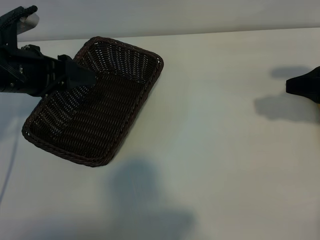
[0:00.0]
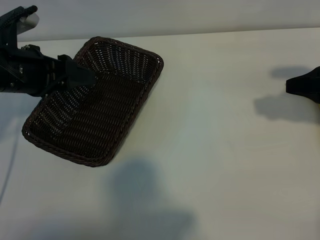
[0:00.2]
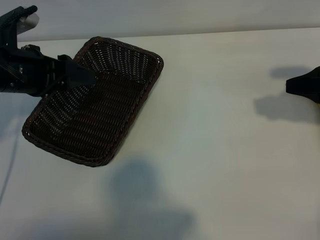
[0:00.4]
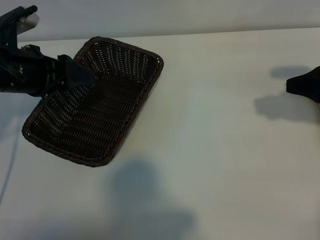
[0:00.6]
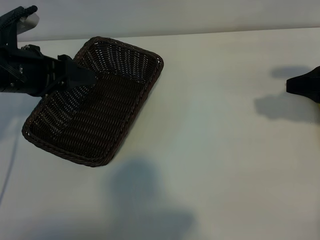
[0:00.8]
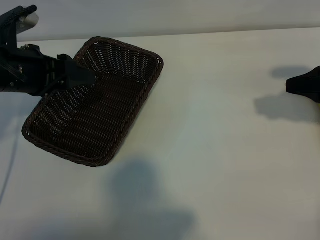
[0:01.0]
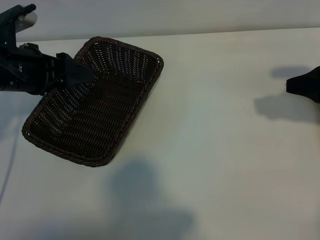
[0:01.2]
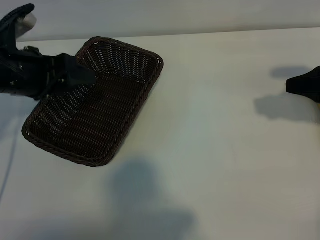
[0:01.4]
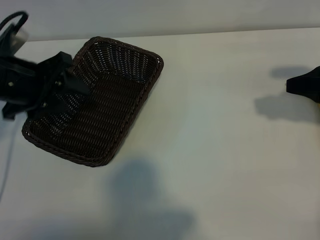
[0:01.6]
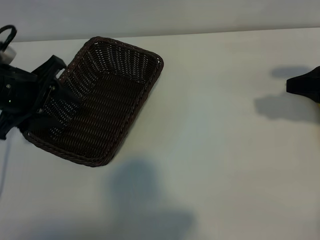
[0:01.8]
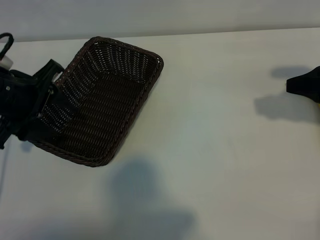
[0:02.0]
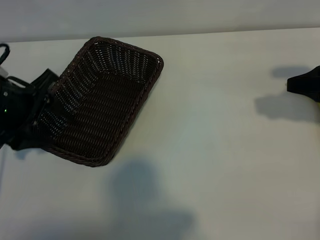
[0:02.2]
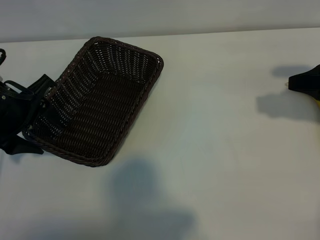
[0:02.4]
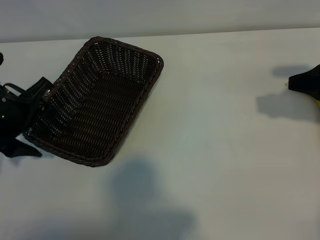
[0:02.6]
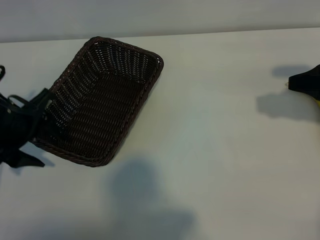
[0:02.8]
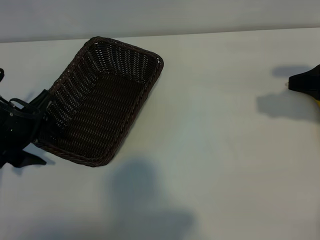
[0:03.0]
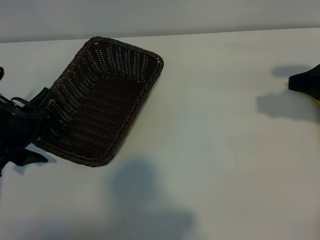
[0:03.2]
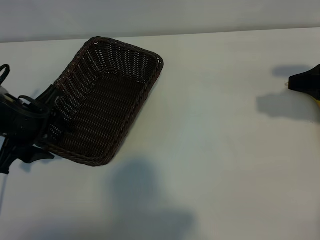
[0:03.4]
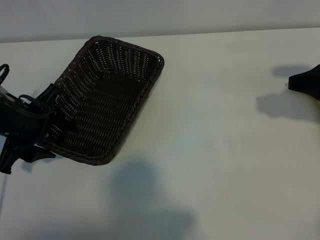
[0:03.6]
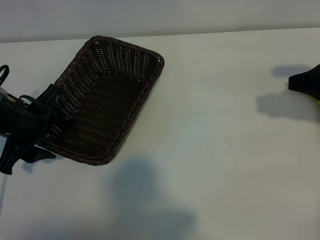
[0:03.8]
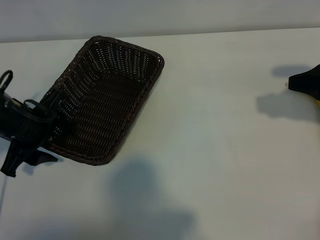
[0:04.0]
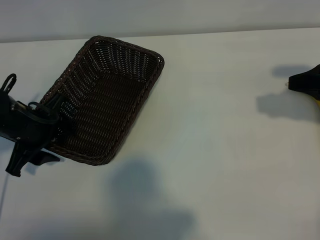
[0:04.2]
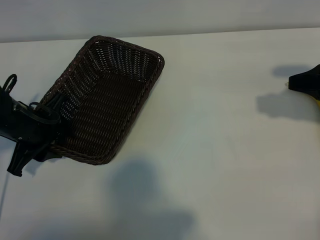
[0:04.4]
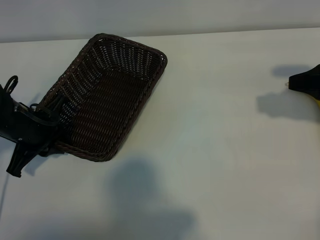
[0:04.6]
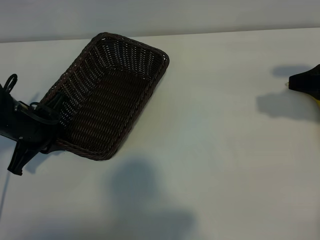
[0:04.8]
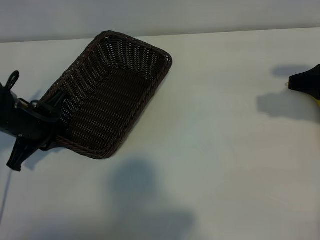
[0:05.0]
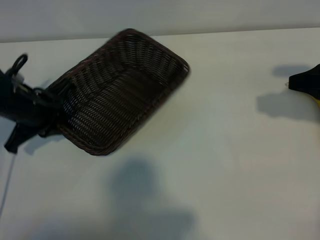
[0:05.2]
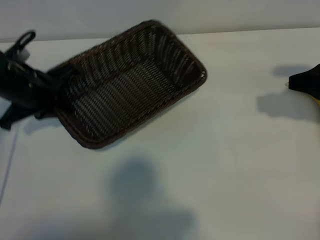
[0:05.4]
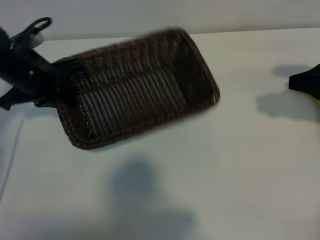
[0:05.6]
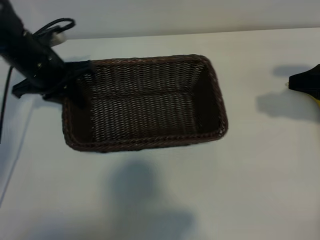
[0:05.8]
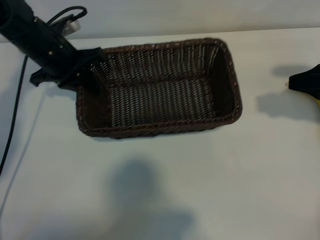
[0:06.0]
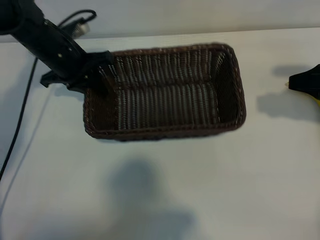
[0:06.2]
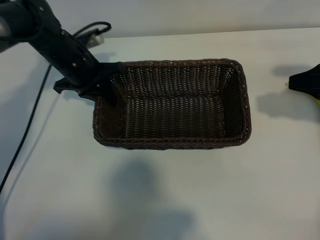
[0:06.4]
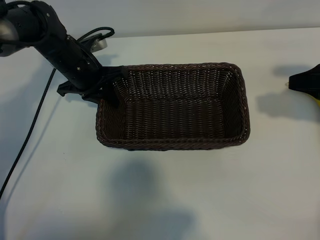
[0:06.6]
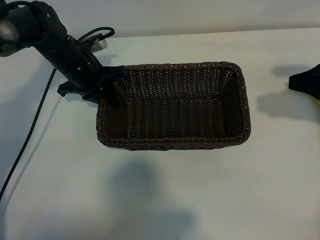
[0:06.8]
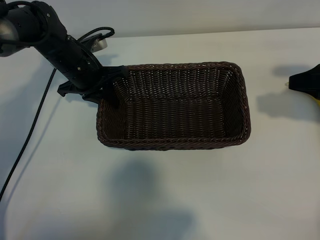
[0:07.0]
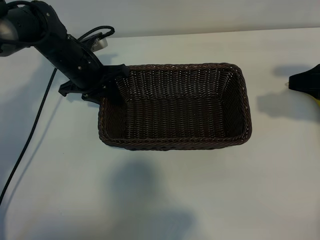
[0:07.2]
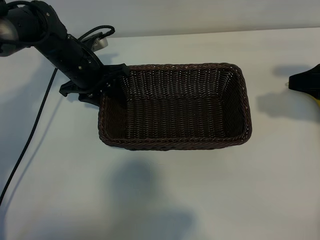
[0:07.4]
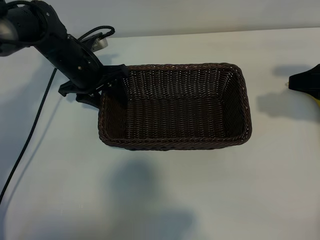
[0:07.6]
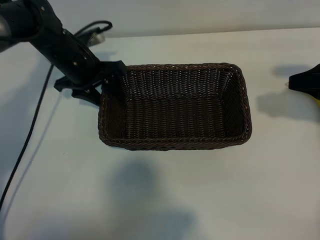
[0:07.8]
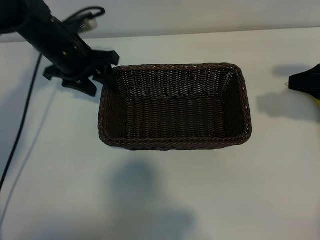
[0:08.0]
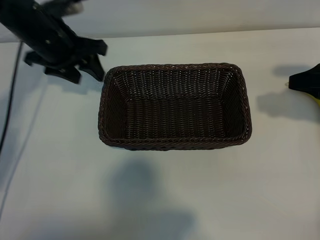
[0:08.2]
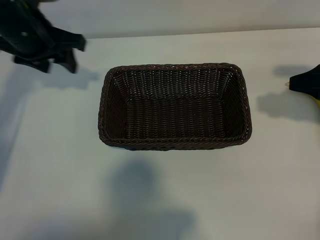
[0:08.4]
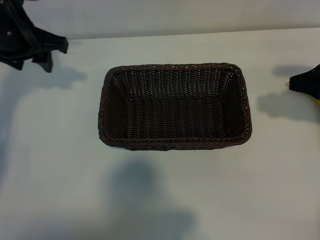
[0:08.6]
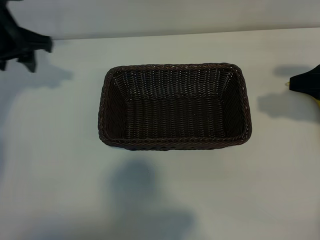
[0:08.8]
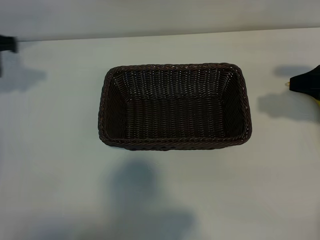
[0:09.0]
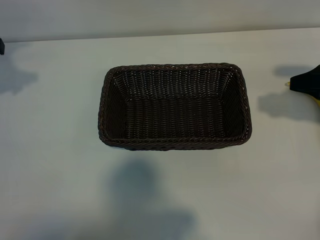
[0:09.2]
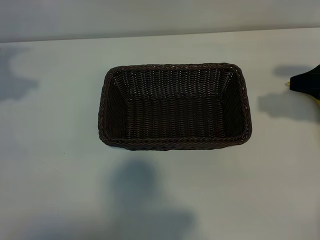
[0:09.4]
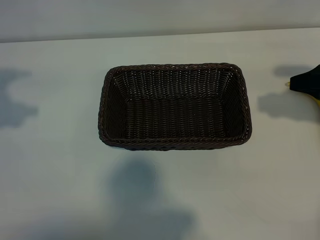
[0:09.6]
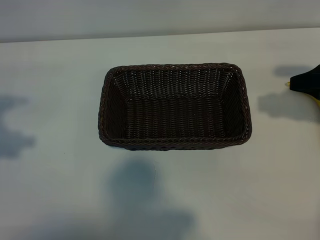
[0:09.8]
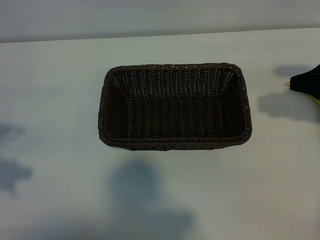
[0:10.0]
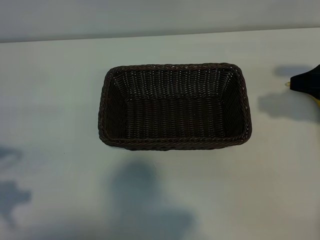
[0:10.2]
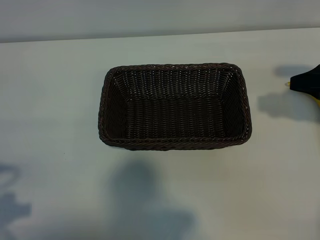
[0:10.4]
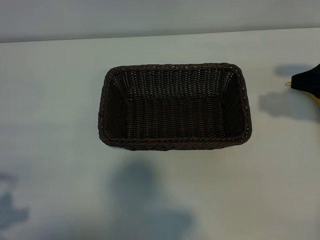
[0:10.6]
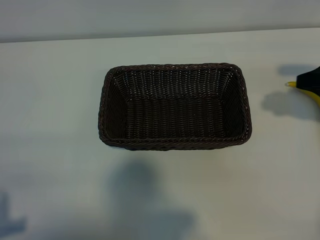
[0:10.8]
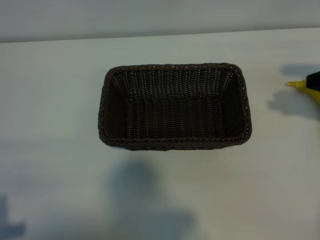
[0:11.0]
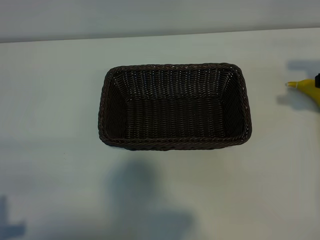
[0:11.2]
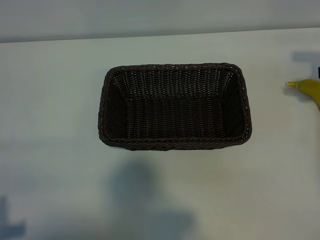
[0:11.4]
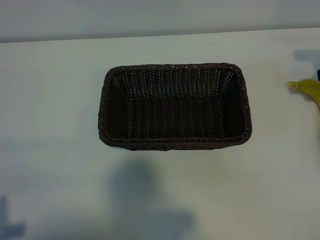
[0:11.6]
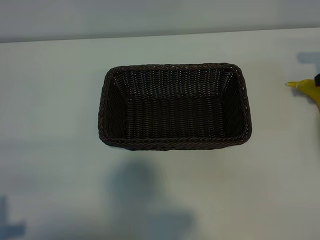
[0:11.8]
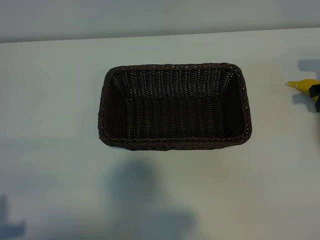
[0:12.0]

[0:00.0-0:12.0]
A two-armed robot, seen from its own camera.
Task of the whole recording: pick up the banana and put it into the basket.
Step, 0:01.4 to 0:04.6: Grasp the basket with the left gripper.
Step, 0:04.8 to 0:07.4: Place the basket in the center of the table with the left gripper.

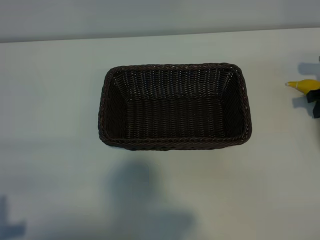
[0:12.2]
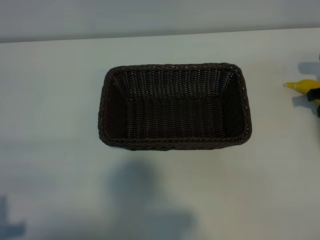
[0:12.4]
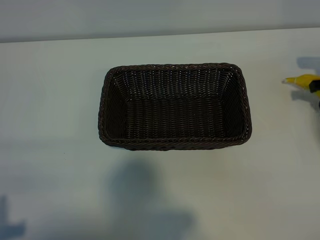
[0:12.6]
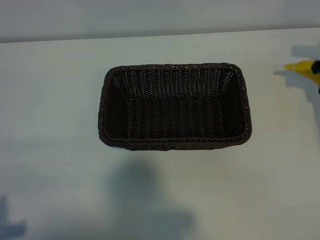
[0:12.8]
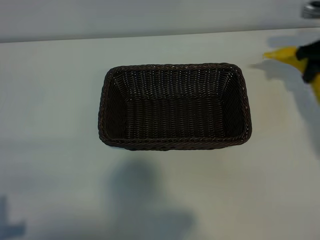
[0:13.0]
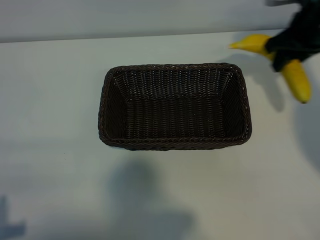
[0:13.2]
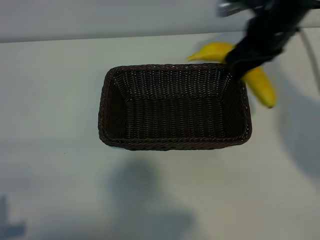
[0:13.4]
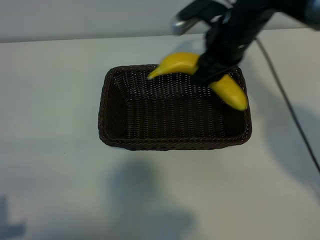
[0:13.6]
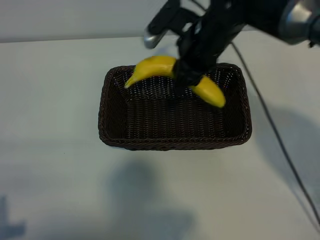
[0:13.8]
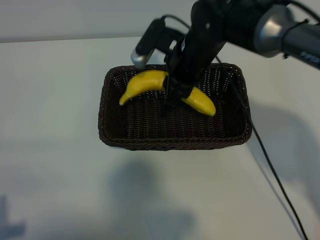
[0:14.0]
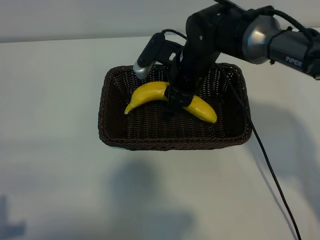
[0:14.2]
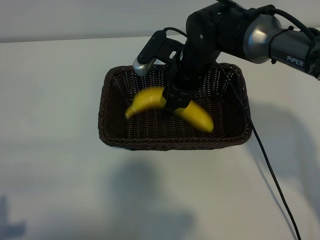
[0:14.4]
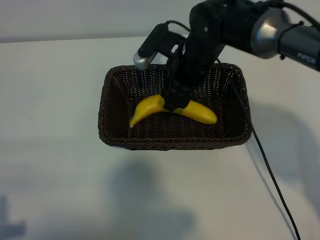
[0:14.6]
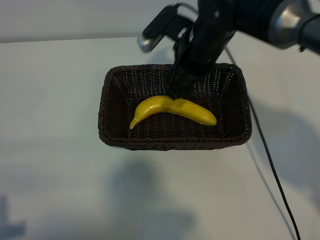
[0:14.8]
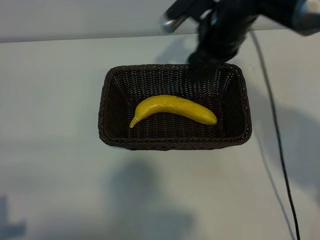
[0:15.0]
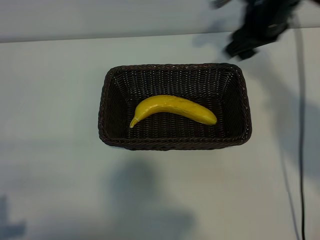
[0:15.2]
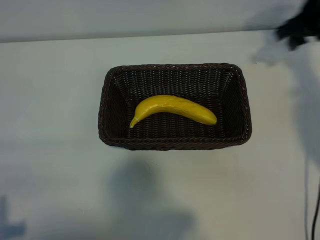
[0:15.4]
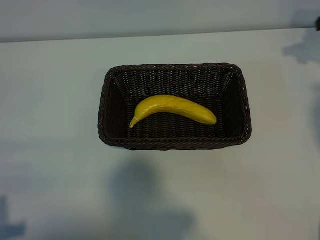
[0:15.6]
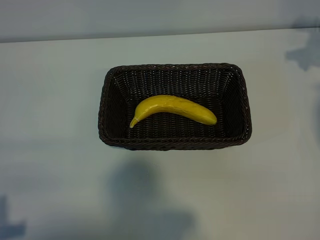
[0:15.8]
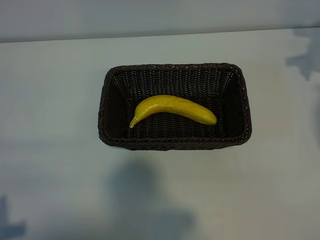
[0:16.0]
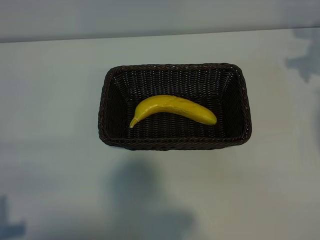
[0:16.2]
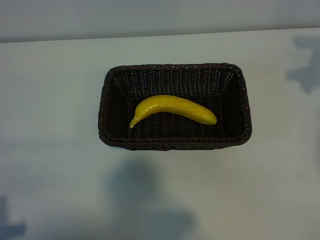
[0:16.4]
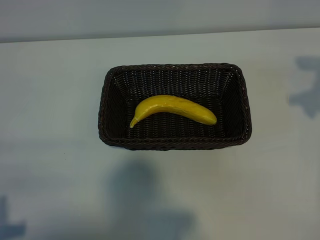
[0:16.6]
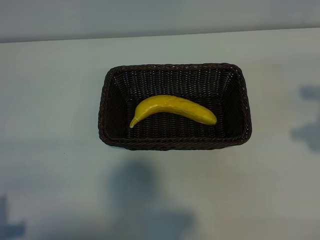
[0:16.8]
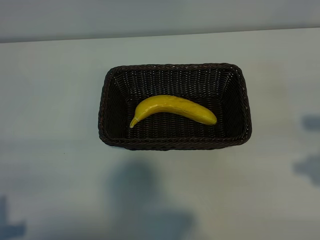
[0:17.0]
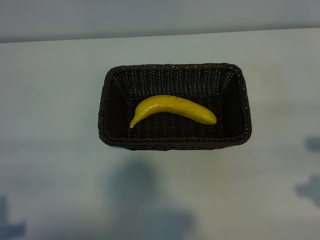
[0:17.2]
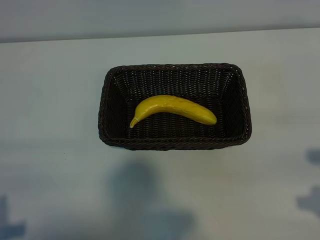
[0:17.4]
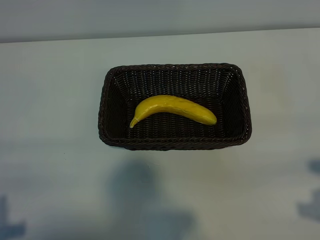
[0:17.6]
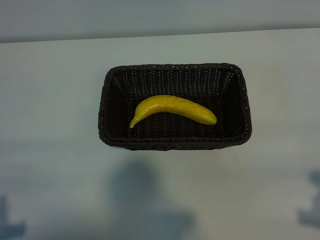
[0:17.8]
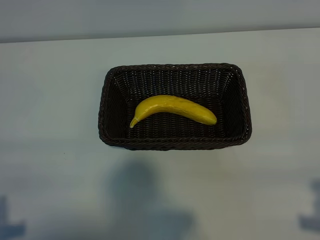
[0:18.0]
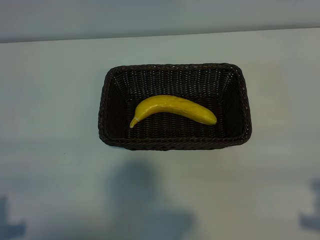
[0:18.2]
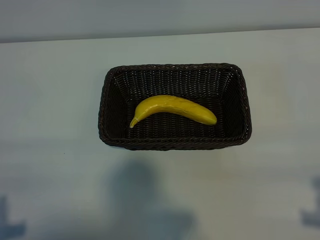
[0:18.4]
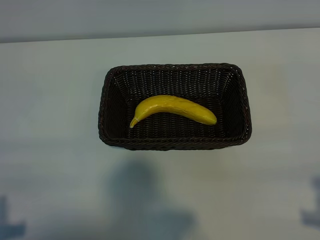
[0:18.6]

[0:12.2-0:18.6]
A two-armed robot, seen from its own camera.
Task of the whole recording: pick up the banana and put it into the basket.
Step, 0:12.6 to 0:14.4: Place the banana in the basket with right gripper.
